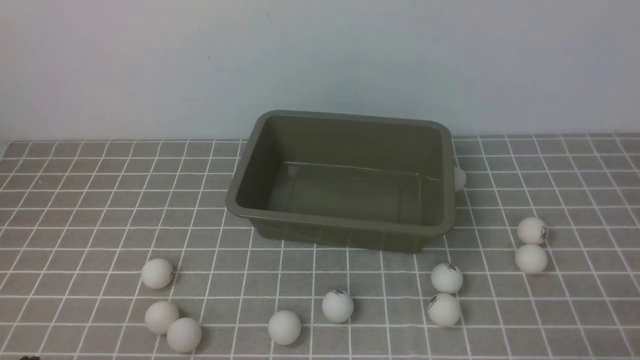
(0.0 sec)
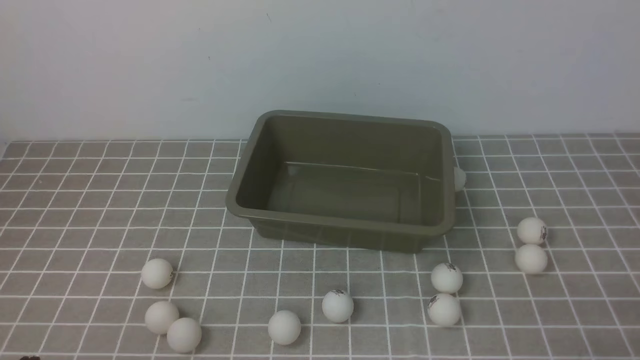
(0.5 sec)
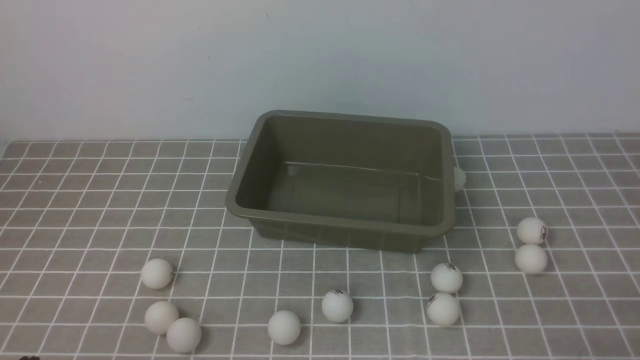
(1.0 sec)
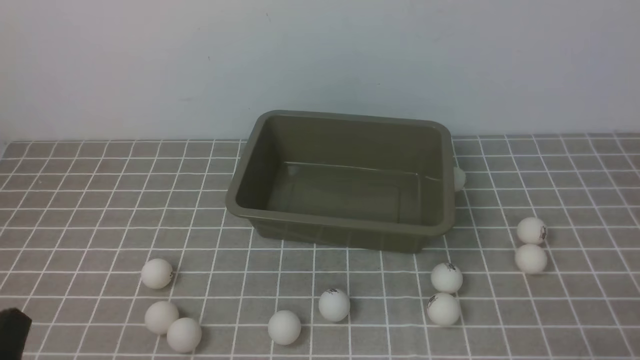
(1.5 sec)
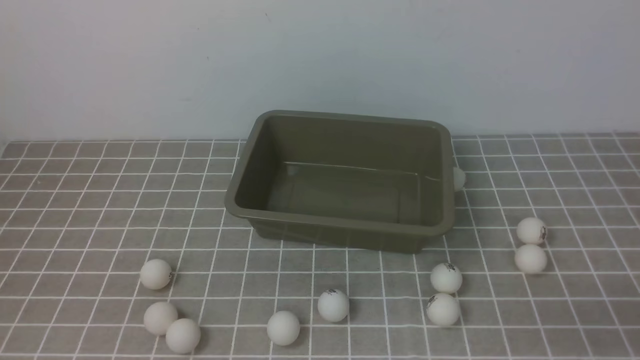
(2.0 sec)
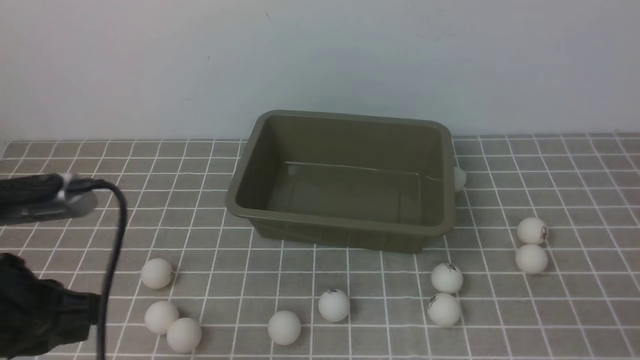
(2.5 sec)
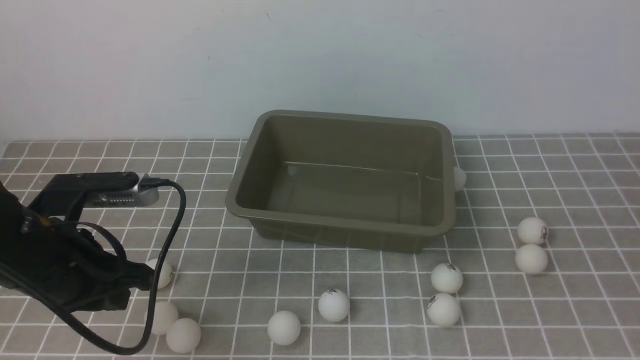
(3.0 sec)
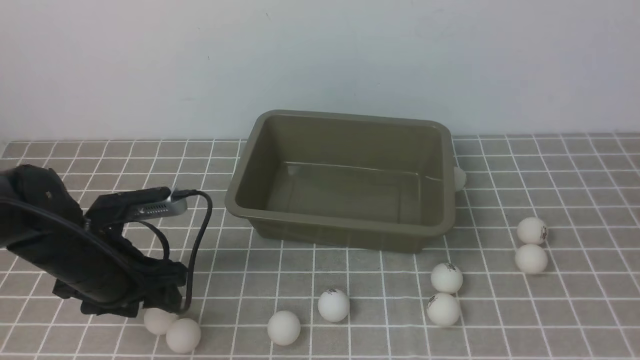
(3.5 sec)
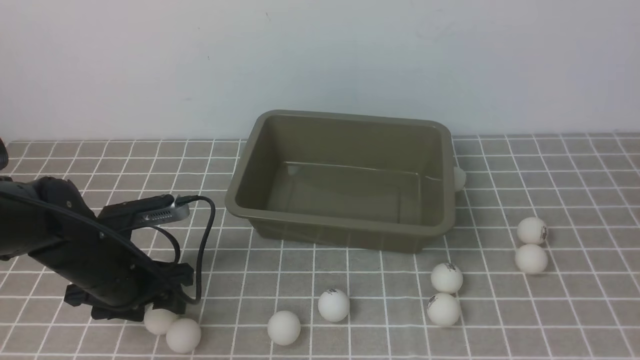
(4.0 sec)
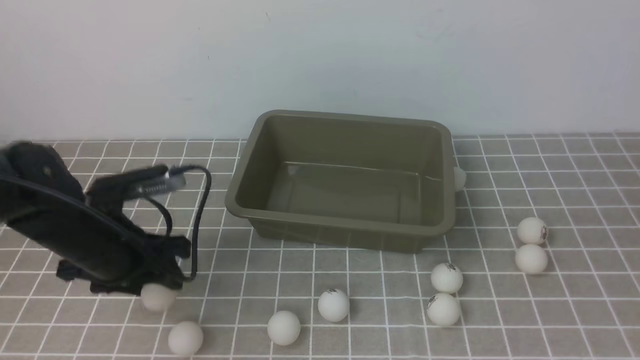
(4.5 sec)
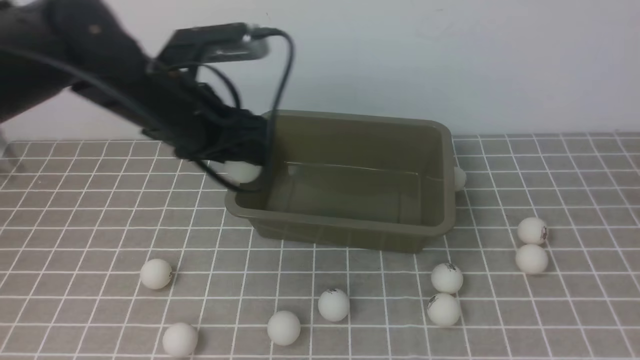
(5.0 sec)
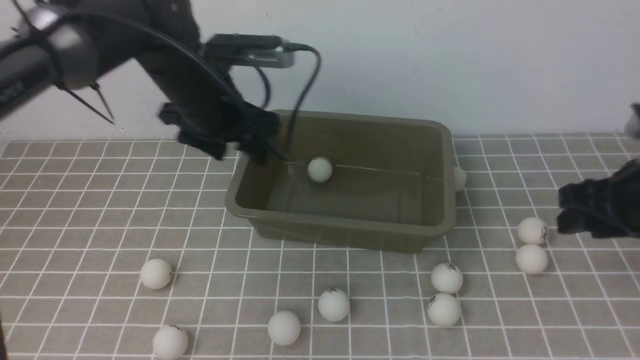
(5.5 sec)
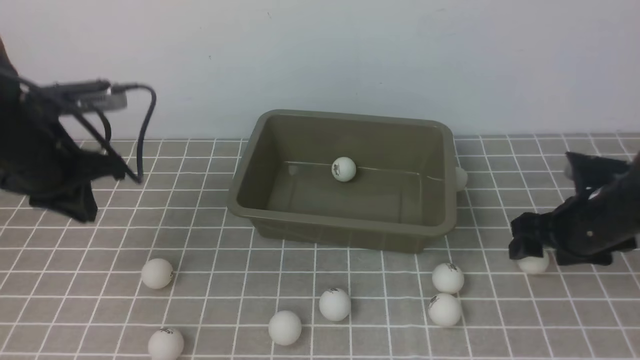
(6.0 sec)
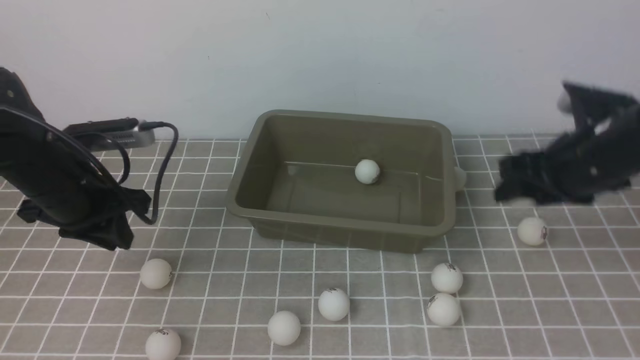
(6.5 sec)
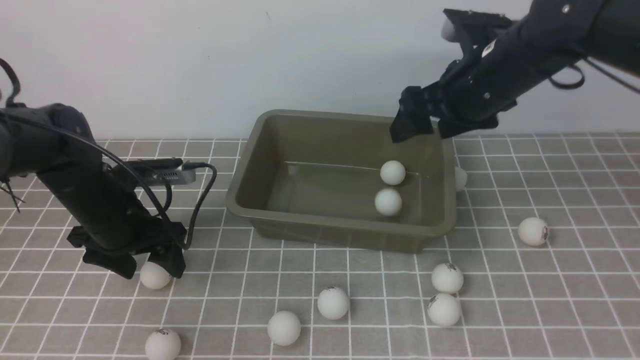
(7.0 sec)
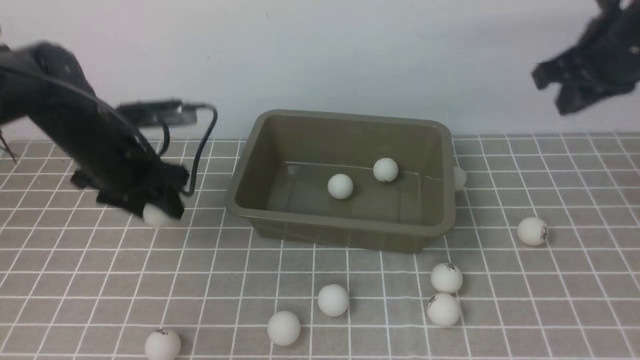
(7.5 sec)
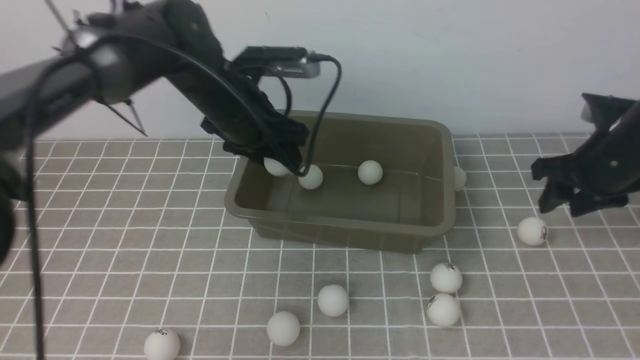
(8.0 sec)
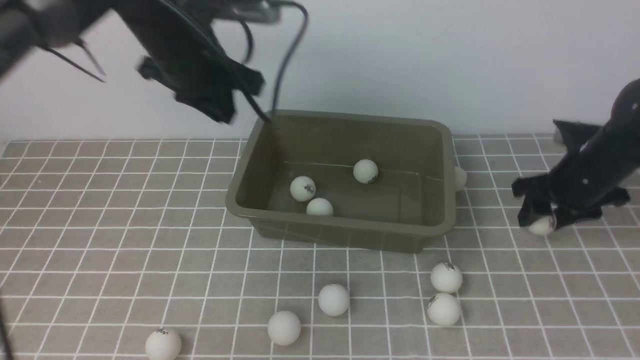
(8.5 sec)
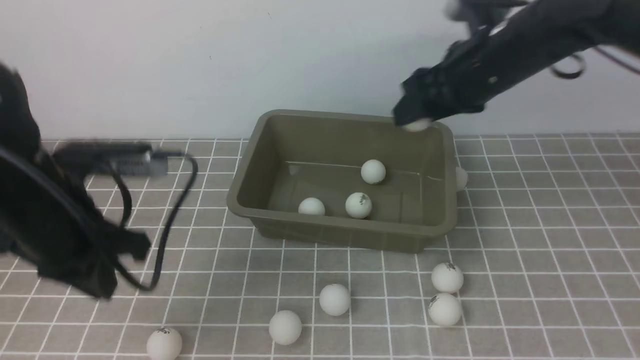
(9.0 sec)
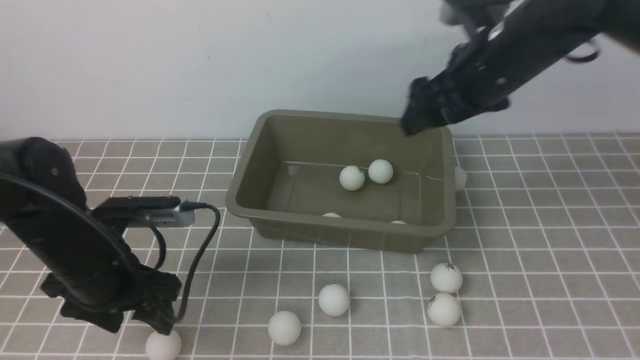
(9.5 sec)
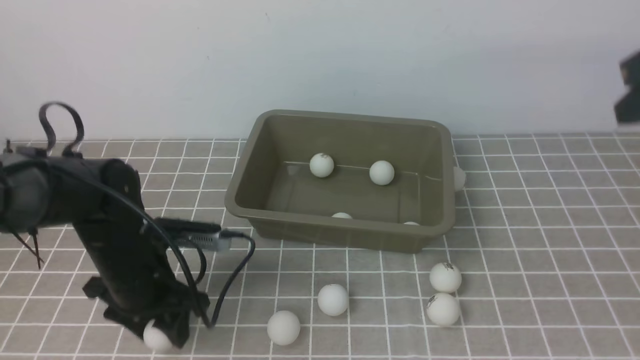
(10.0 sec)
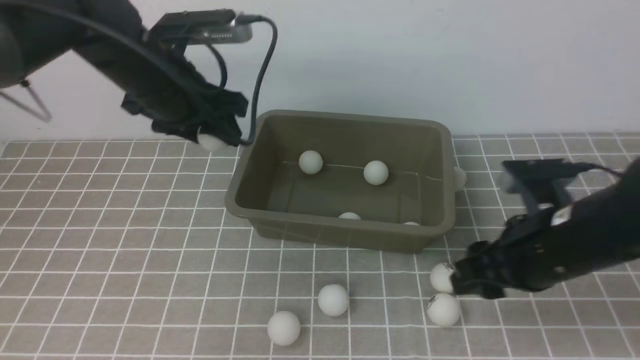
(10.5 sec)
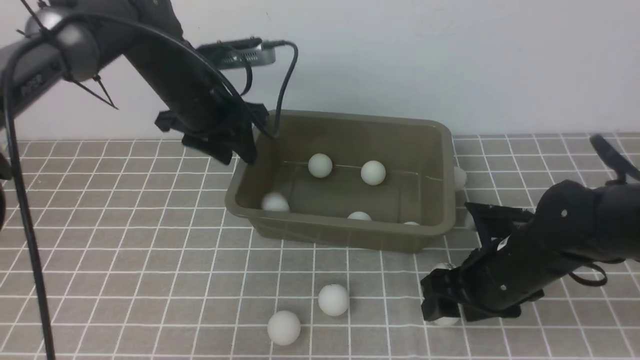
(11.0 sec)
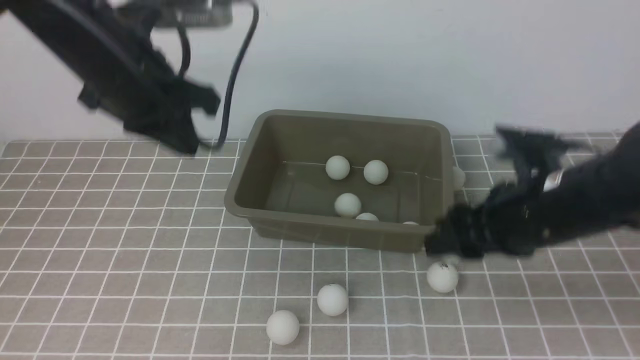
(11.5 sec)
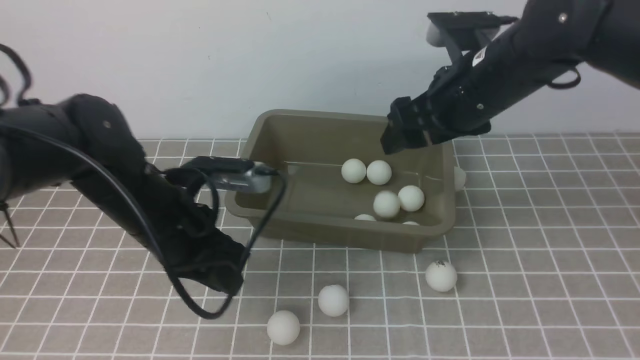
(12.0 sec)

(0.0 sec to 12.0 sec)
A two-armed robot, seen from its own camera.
Step, 0.0 sec - 4.5 sec: use the left arm to clamp the table tennis ball closest to it.
Step, 5.5 sec - 6.5 sec: use the right arm to clamp the table tennis ball closest to it.
Step, 9.5 sec - 10.0 sec: use the left arm to clamp the table tennis ball closest to it.
Step, 10.5 sec - 11.0 sec: use the left arm to put the table tennis ball into the box.
2.0 sec - 4.0 sec: The left gripper goes roughly 25 cm forward and downward, and opens its fingers. The right gripper shifts some 15 cm upward.
4.0 sec - 6.0 sec: The left gripper heads upward and forward, covering approximately 15 cm, and closes. Meanwhile the right gripper travels forward and downward by about 30 cm, and opens its fingers.
6.0 sec - 8.0 sec: The right gripper travels upward and back again, about 15 cm each way, and closes, then opens again. Meanwhile the left gripper shifts roughly 20 cm to the right and forward, and opens up.
8.0 sec - 10.0 sec: The right gripper heads upward and backward, covering approximately 20 cm, and closes up. Meanwhile the left gripper heads backward, downward and to the left, covering approximately 15 cm, and closes and opens again.
10.0 sec - 12.0 sec: The left gripper moves about 15 cm upward and comes back, and closes, then reopens; the right gripper is displaced to the left and forward by roughly 15 cm, goes downward and returns, approximately 20 cm each way, and opens up.

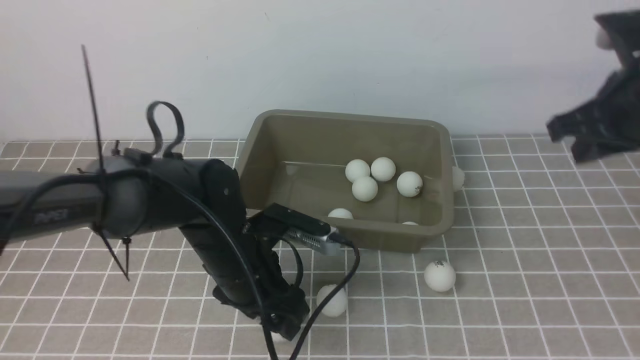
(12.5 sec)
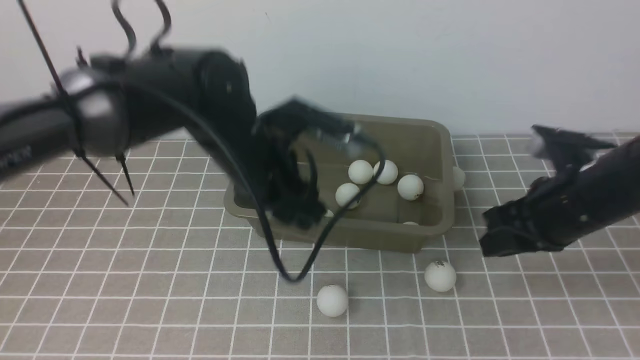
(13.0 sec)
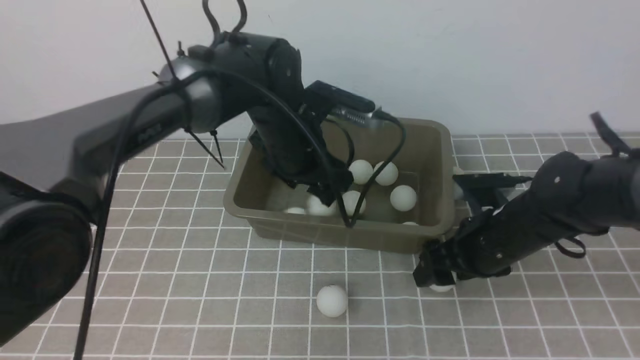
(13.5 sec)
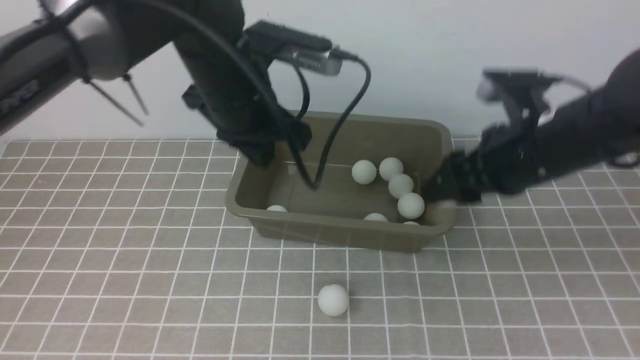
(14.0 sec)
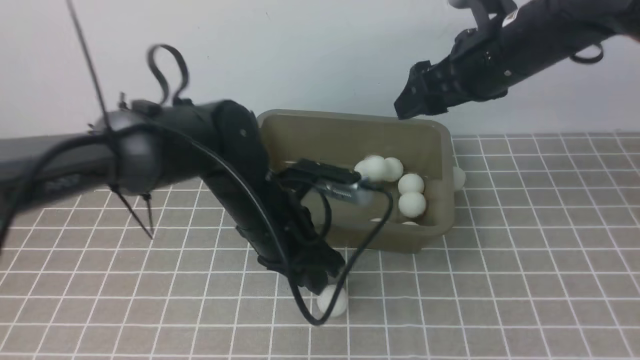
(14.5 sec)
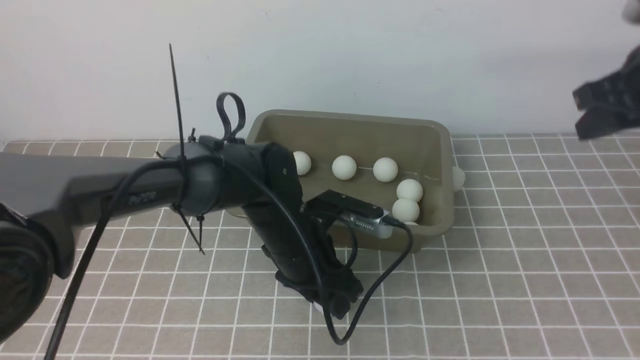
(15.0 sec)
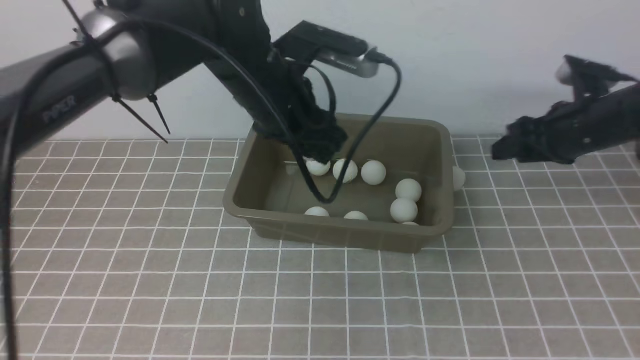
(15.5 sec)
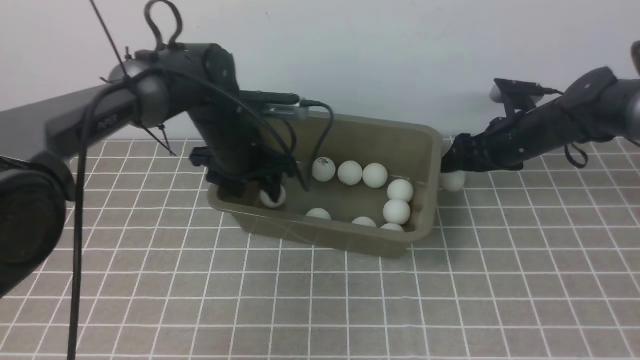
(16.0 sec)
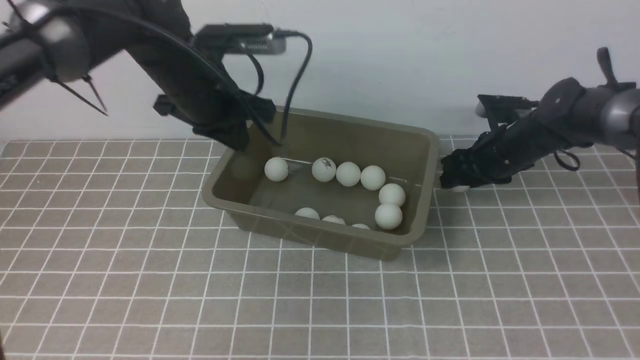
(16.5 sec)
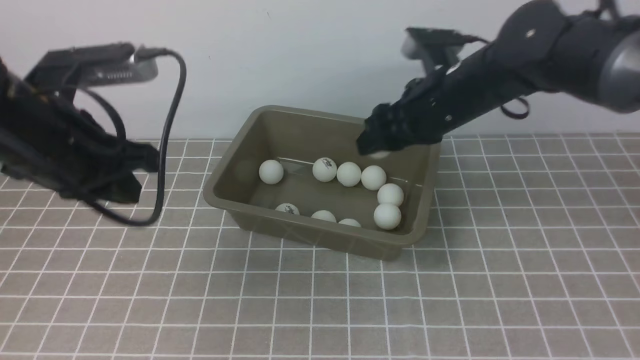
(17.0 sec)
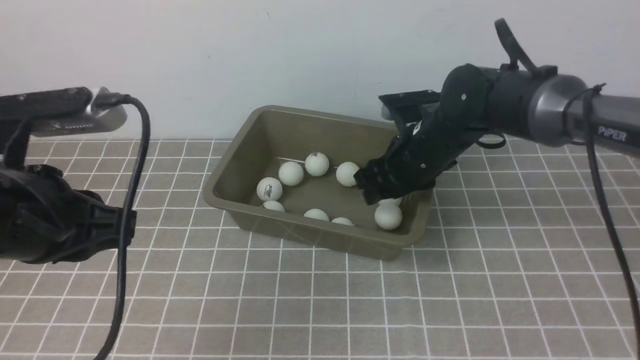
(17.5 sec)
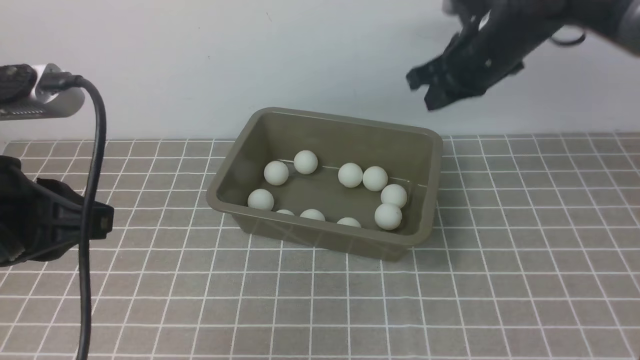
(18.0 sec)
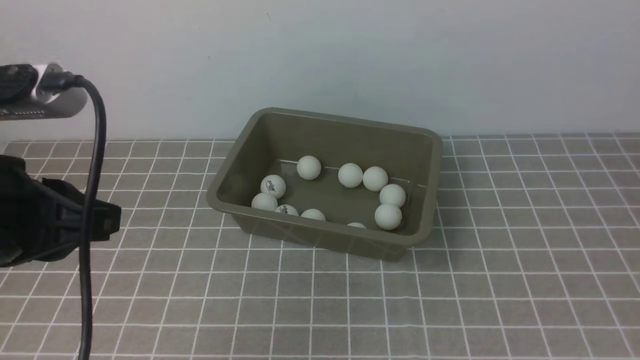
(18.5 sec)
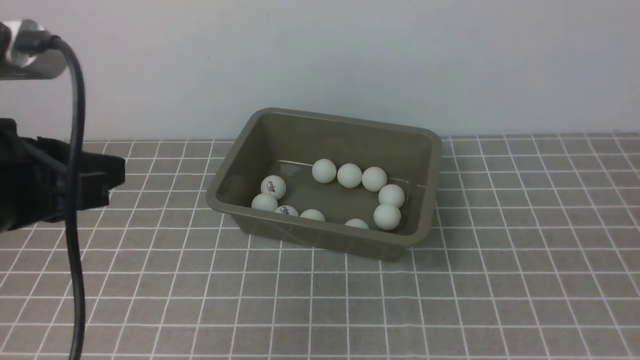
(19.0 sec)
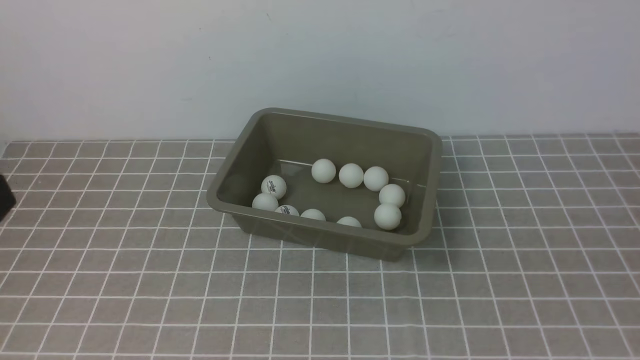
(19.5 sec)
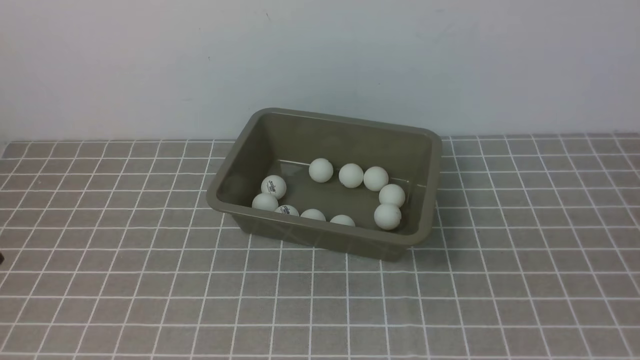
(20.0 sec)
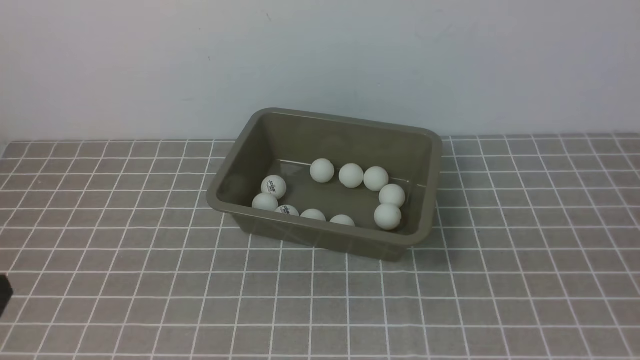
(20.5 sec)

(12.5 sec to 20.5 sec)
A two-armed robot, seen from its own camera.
12.5 sec - 14.5 sec: The left gripper travels upward and back again, some 15 cm each way, and closes; the right gripper shifts some 10 cm to the left and forward, reaches approximately 15 cm downward, then returns, and opens up.
14.5 sec - 16.5 sec: The right gripper moves downward and forward, roughly 20 cm, and closes and opens again, while the left gripper travels upward, to the left and forward by roughly 15 cm, and closes up.
16.5 sec - 18.5 sec: The left gripper goes approximately 25 cm backward, while the right gripper goes roughly 50 cm backward and upward, and closes.
18.5 sec - 20.5 sec: The left gripper moves backward and downward, approximately 15 cm.
